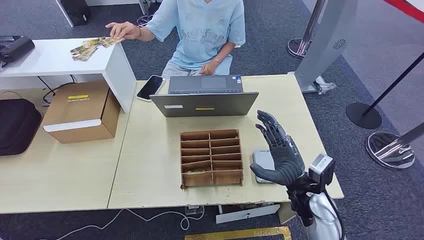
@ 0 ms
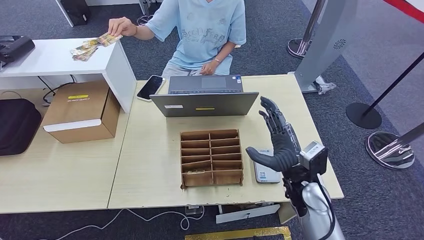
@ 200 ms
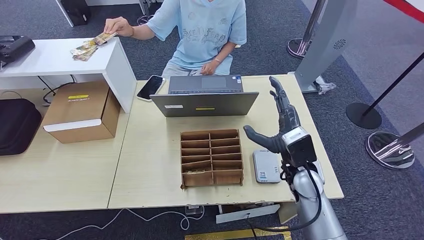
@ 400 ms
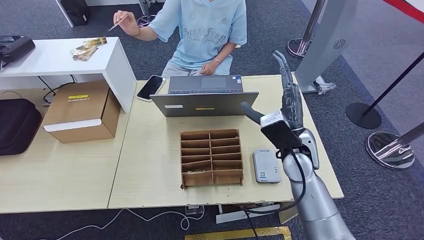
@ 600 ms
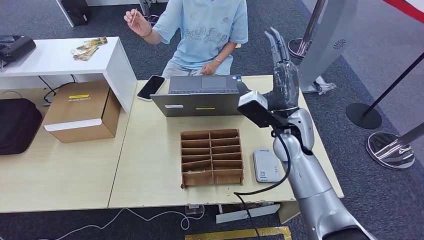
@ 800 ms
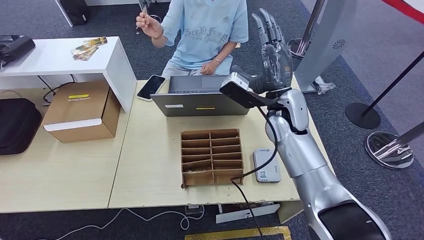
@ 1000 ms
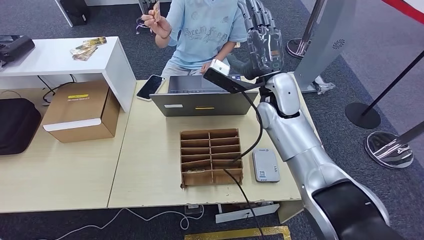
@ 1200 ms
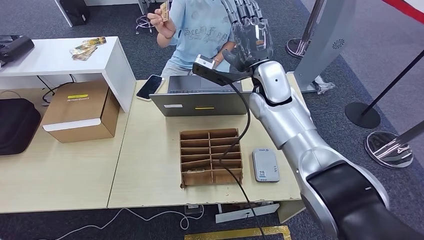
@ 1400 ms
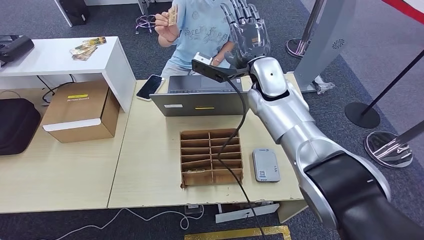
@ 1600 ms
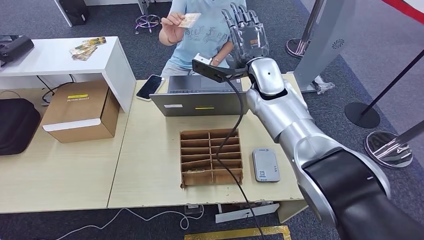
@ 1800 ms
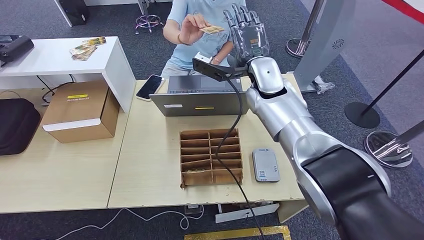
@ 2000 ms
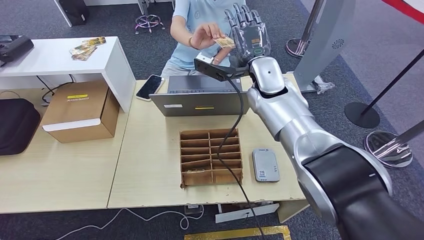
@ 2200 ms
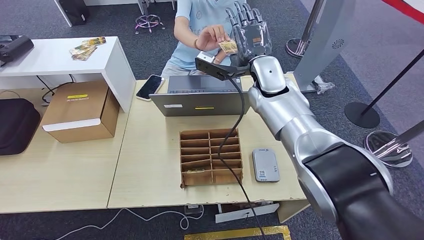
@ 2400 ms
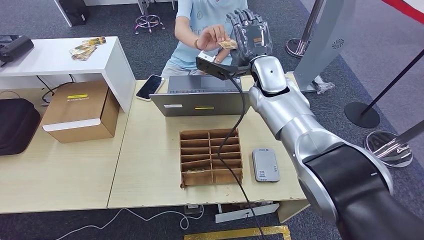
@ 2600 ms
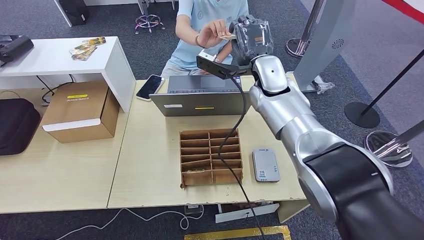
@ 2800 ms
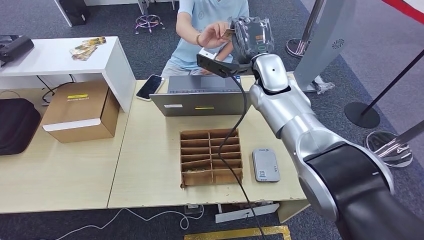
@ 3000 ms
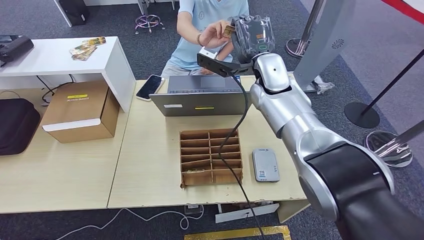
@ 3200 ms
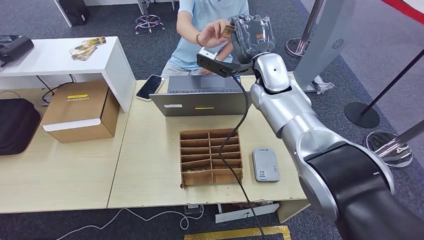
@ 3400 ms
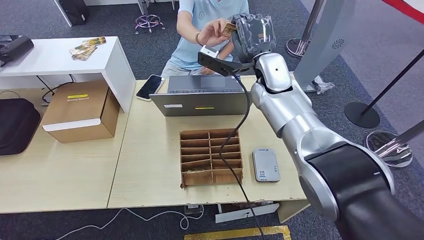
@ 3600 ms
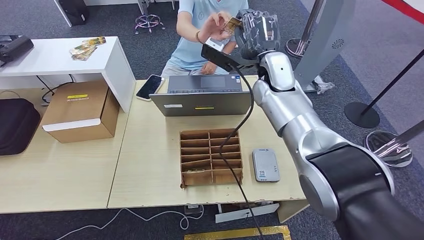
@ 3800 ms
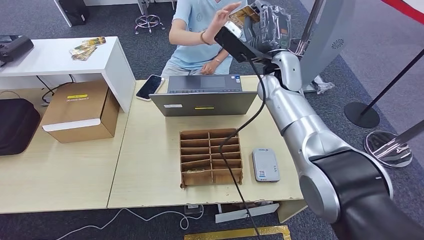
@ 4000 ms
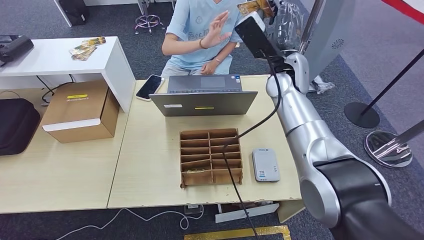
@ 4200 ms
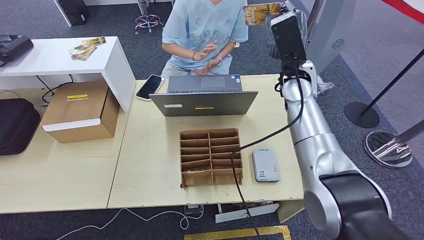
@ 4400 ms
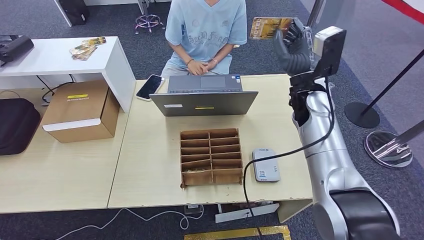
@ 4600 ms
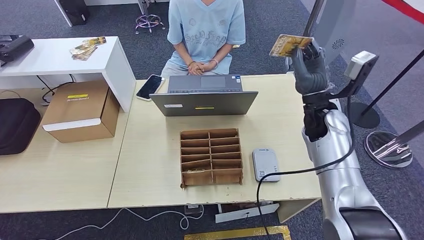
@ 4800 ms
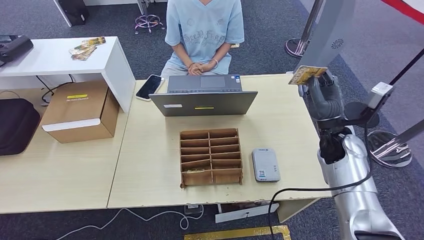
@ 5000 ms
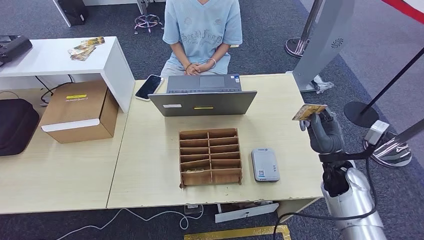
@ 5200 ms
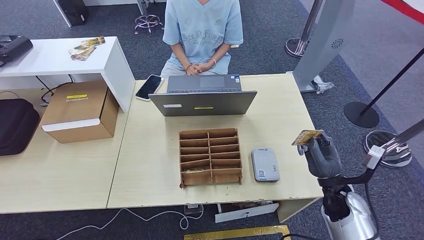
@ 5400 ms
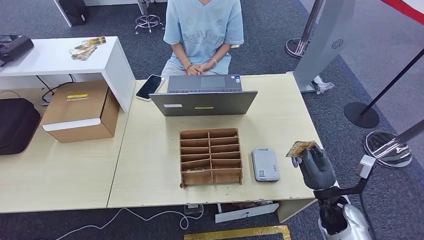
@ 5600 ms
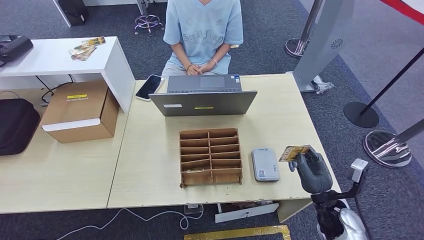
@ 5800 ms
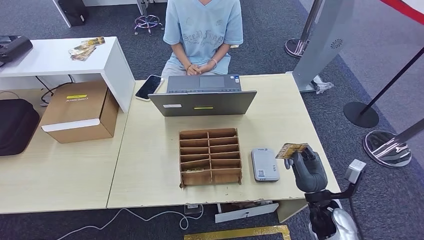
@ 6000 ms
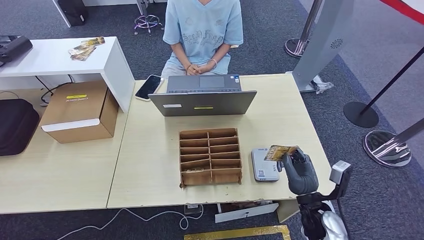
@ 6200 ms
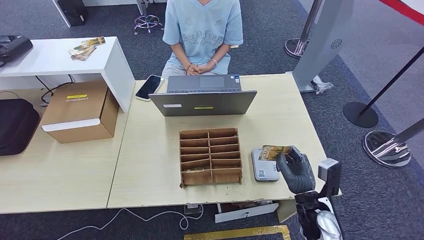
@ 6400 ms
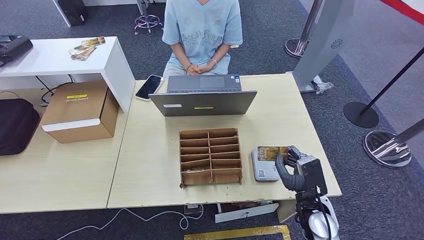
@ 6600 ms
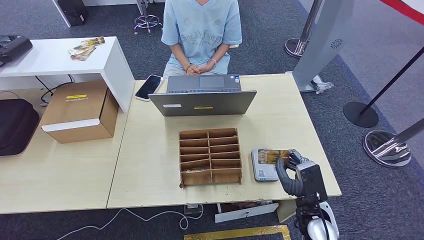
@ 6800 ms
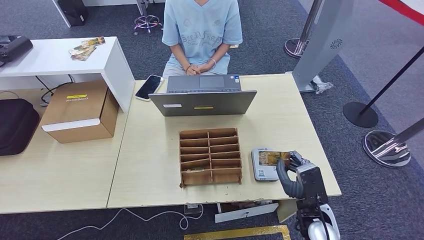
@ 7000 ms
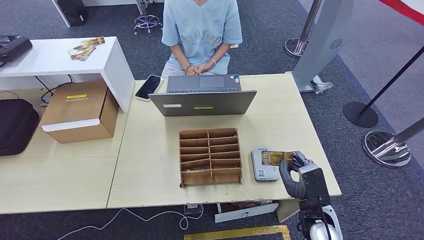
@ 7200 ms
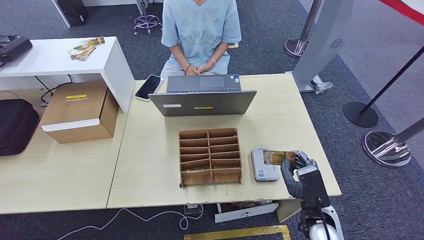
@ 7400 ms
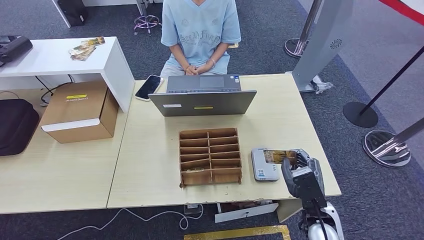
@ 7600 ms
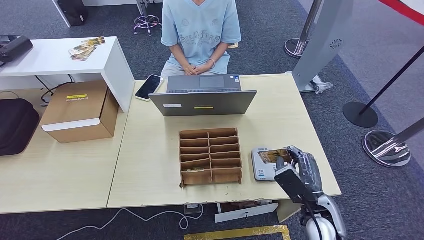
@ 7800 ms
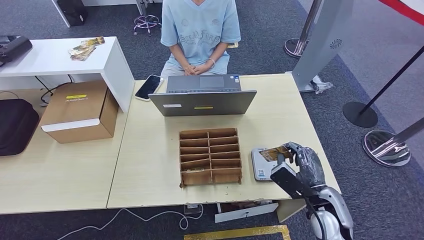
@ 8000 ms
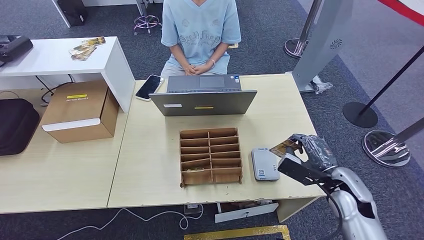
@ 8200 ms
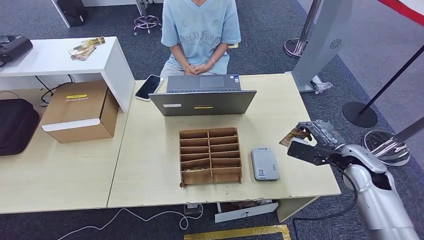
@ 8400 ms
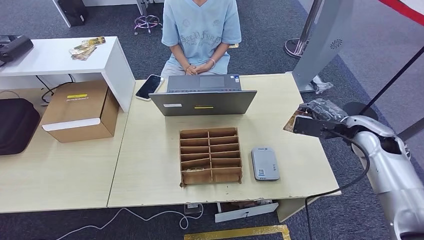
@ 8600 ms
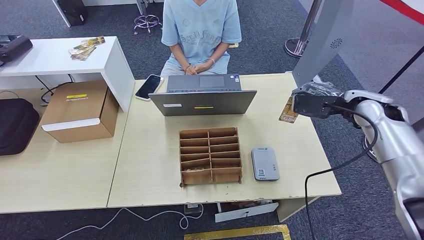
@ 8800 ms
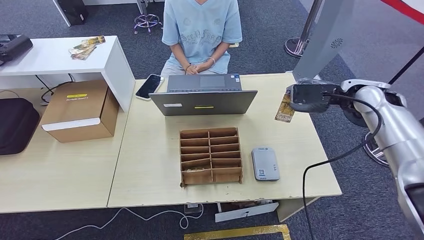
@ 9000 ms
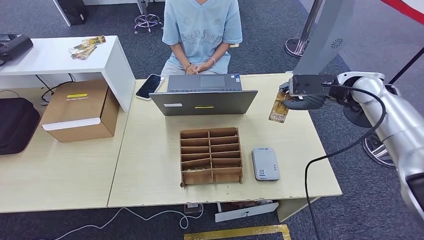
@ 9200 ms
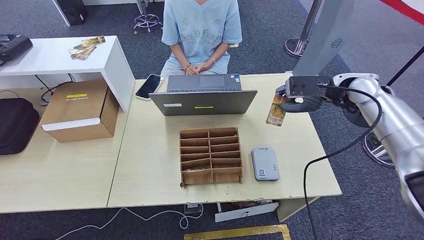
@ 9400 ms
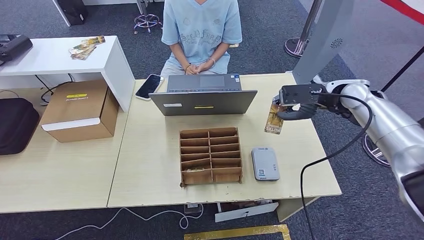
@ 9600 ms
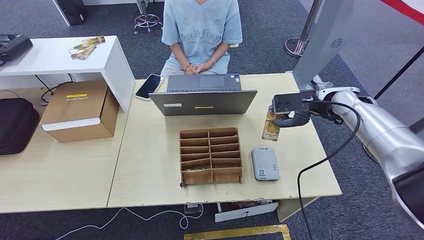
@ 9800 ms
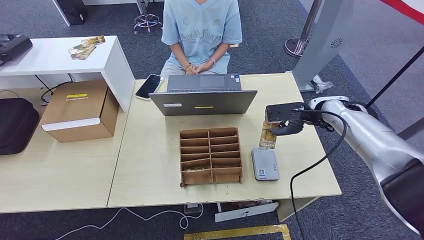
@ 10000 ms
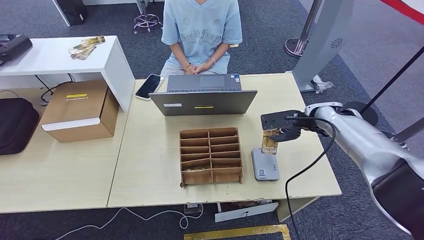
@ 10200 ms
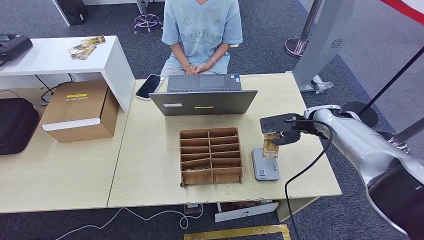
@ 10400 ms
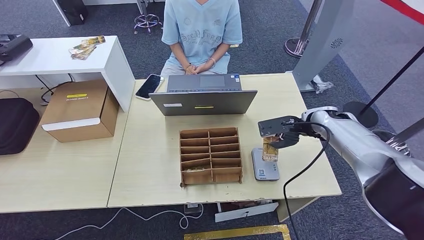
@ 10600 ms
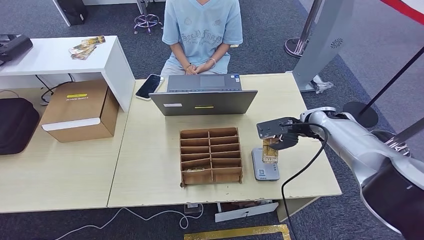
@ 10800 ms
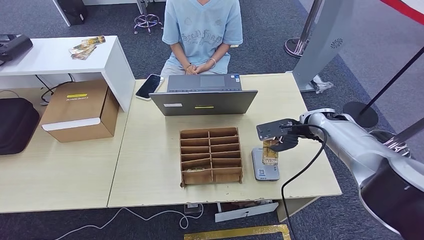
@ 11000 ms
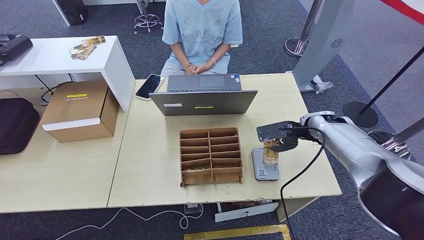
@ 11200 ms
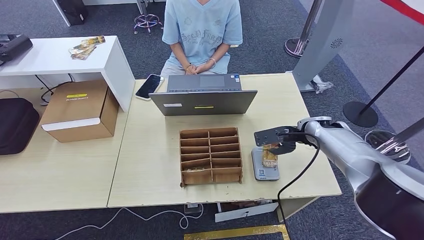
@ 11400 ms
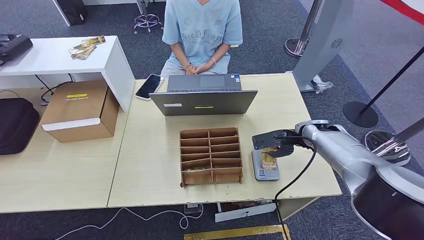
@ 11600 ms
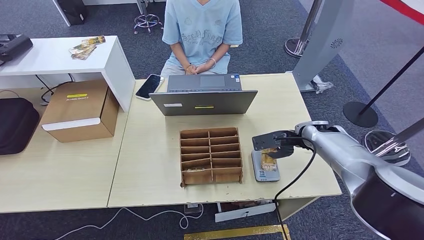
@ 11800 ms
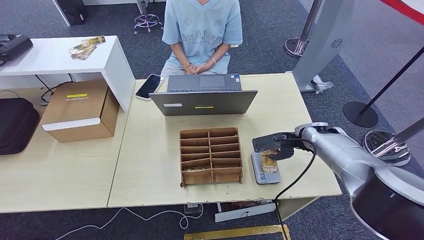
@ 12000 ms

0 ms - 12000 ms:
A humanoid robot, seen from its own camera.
Step, 0 ms - 5400 ms: Take the ID card from the person's hand.
1600 ms - 3000 ms: There are only small adjustments of the hands.
3000 ms - 4400 ms: The right hand shifts approximately 5 cm to the right.
4400 ms - 6000 ms: The right hand heads downward and backward, covering about 35 cm.
6000 ms - 7600 ms: The right hand ends up about 5 cm from where it was.
7600 ms - 9000 ms: The right hand travels forward, upward and to the right by some 35 cm.
9000 ms - 10400 ms: The right hand heads downward, covering roughly 10 cm.
10400 ms - 12000 ms: The right hand moves downward, some 5 cm.

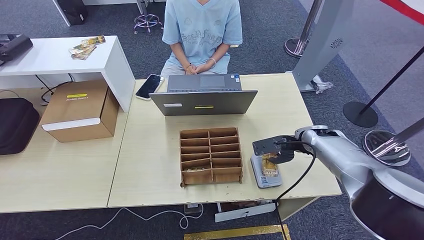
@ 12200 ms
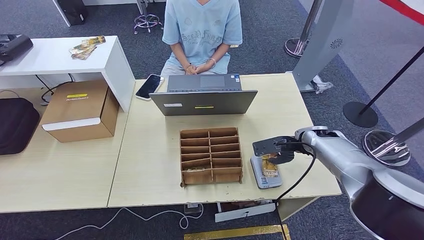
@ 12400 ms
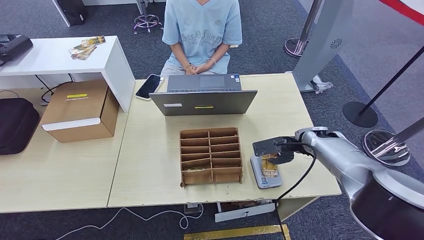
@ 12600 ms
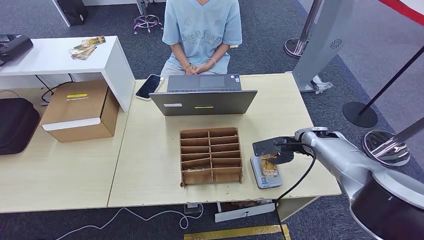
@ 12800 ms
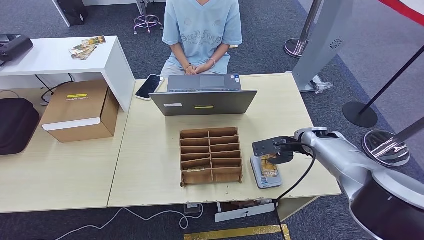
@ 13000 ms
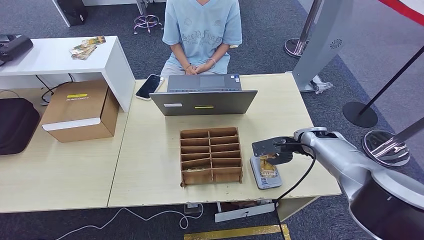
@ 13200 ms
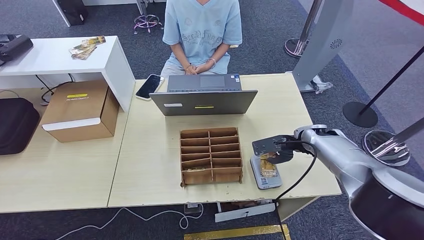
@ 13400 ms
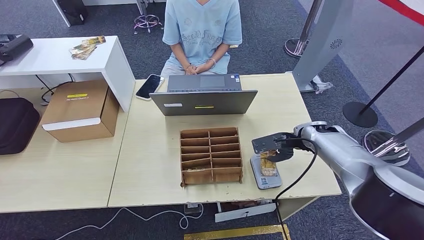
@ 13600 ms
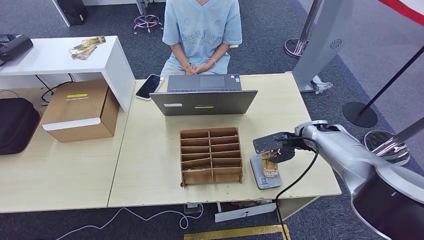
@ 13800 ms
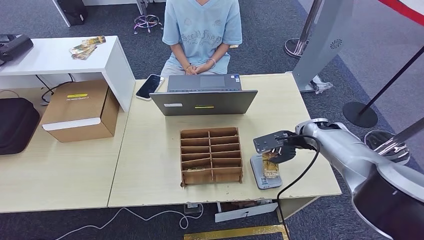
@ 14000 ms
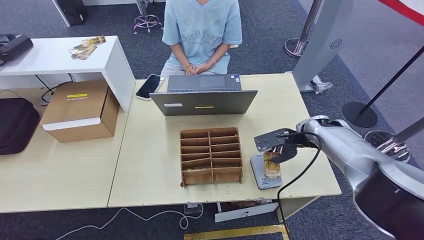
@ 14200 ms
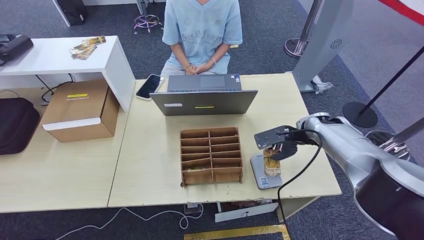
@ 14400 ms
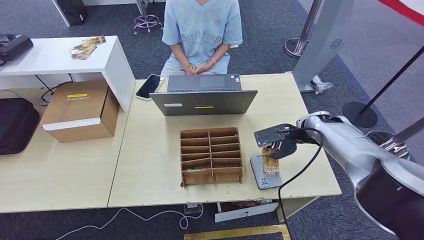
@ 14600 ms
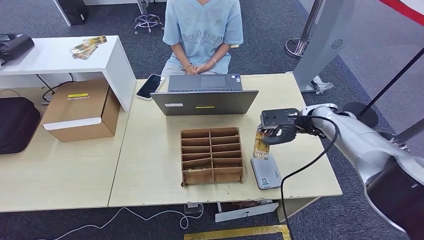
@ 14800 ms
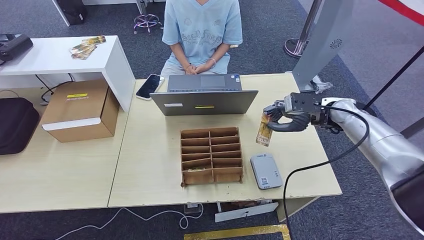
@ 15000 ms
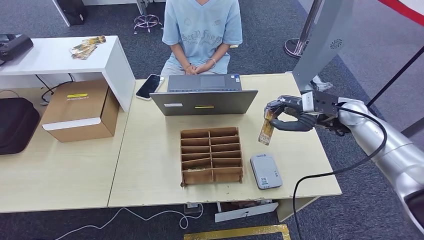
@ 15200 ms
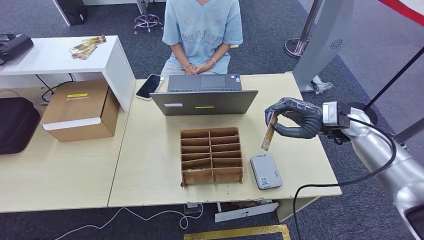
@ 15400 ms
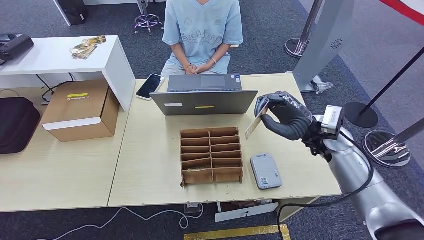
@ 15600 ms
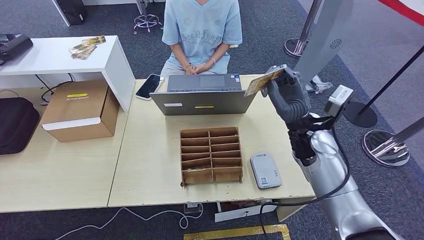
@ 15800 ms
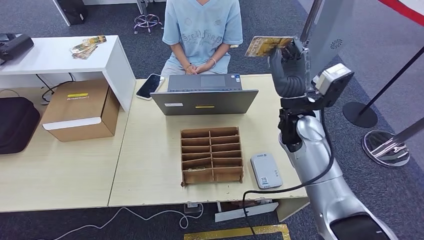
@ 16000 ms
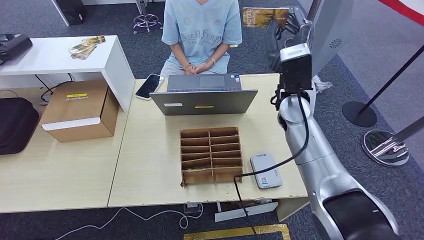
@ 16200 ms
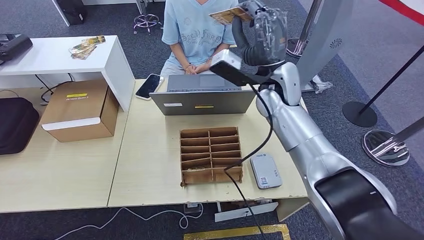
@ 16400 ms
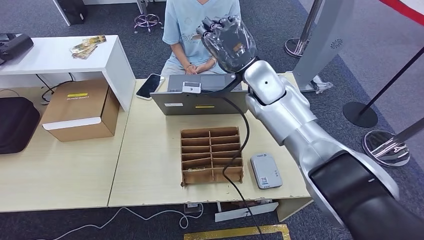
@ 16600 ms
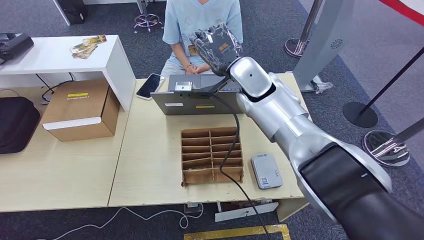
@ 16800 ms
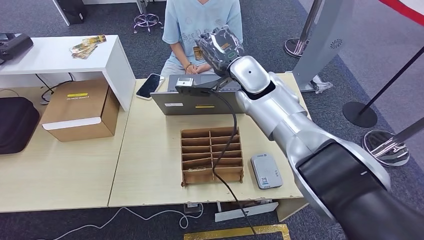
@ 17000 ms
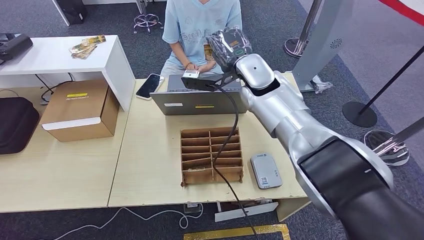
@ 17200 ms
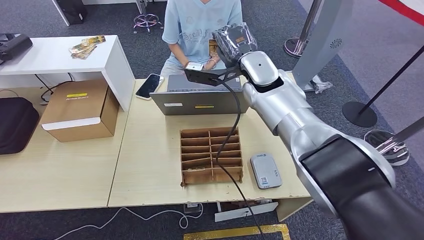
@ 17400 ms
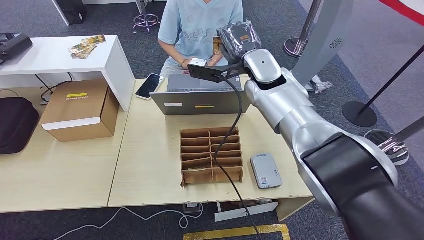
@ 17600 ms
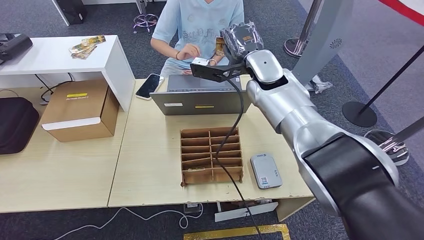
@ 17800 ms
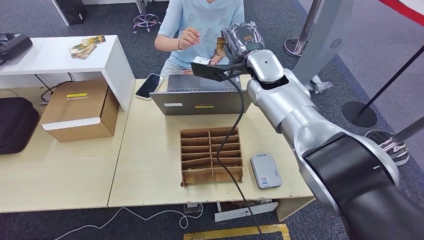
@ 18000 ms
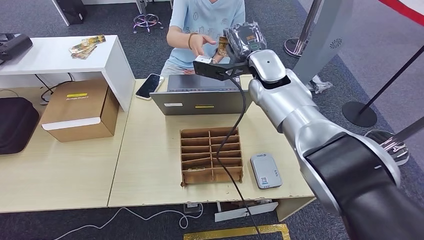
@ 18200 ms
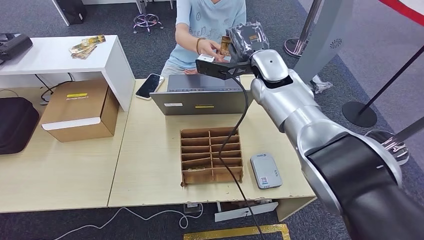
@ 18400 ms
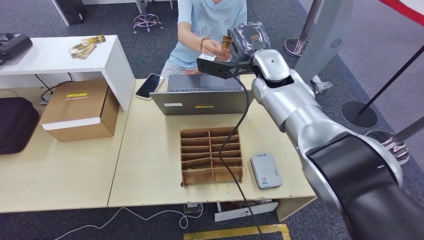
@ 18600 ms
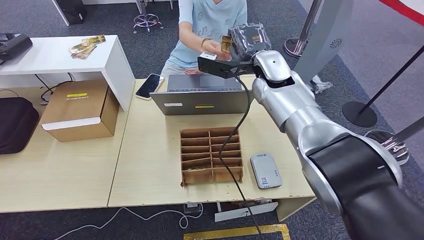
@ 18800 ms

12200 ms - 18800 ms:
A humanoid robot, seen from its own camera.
Step, 12200 ms - 15000 ms: Place the ID card on the card reader.
12200 ms - 13800 ms: The hands move only a little.
13800 ms - 15400 ms: The right hand moves upward, approximately 10 cm.
15400 ms - 17200 ms: The right hand moves to the left, roughly 25 cm.
17200 ms - 18800 ms: The hands make only small movements.
